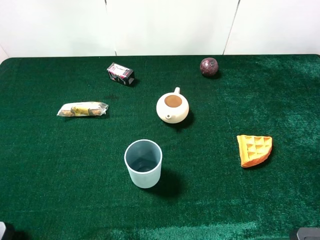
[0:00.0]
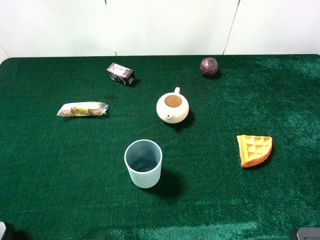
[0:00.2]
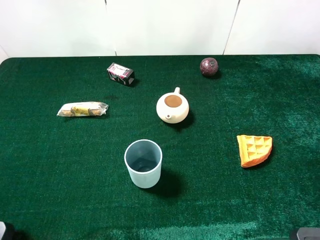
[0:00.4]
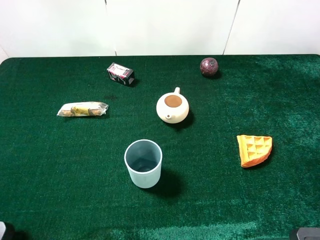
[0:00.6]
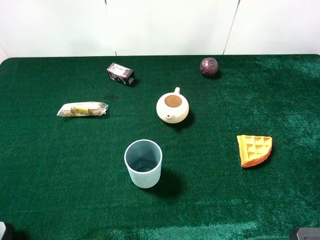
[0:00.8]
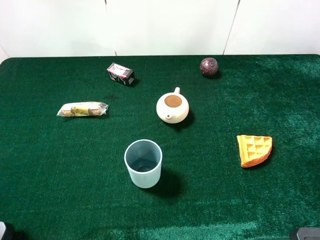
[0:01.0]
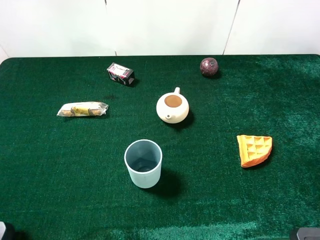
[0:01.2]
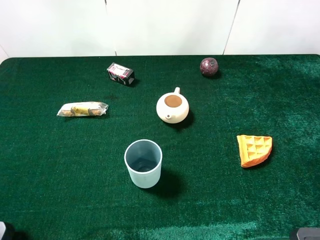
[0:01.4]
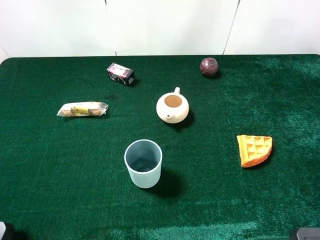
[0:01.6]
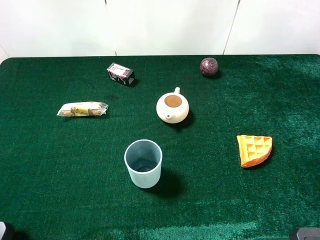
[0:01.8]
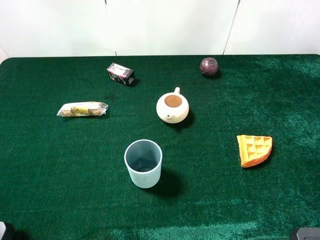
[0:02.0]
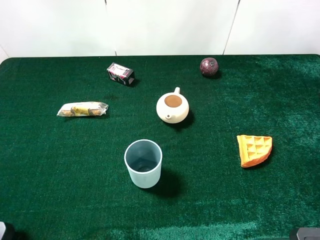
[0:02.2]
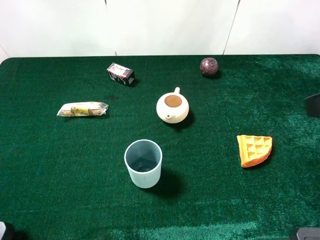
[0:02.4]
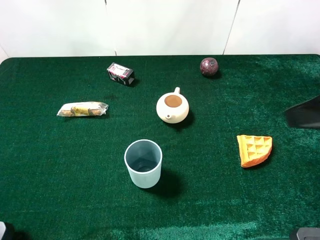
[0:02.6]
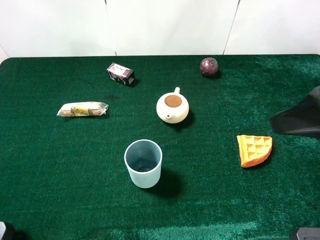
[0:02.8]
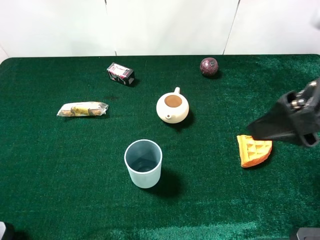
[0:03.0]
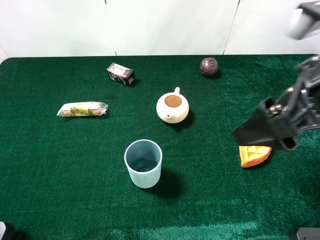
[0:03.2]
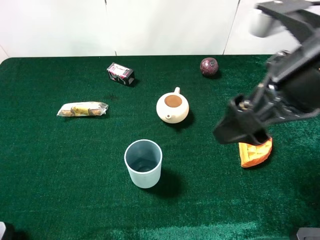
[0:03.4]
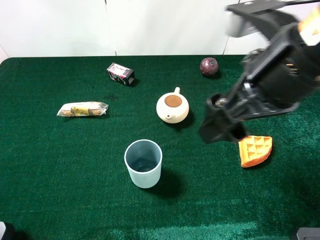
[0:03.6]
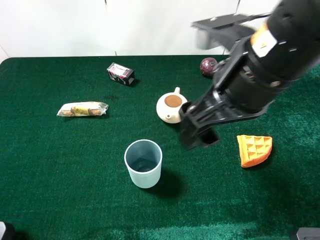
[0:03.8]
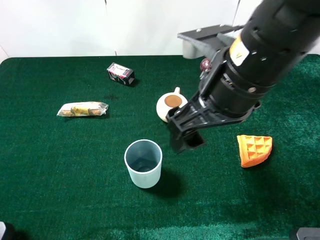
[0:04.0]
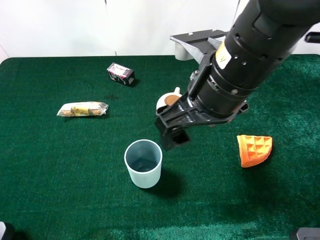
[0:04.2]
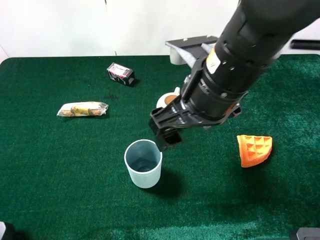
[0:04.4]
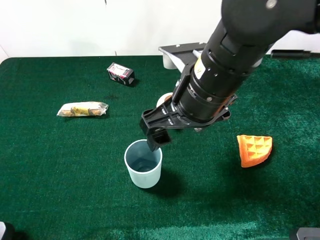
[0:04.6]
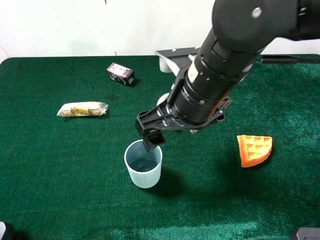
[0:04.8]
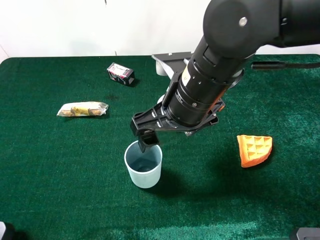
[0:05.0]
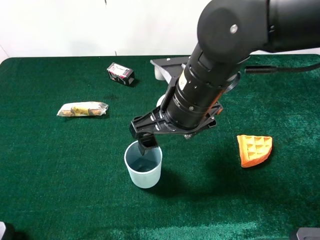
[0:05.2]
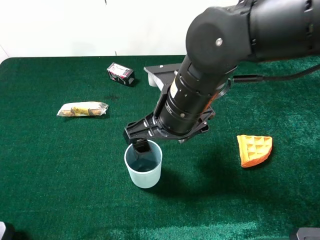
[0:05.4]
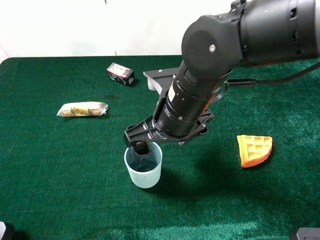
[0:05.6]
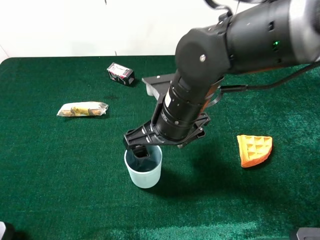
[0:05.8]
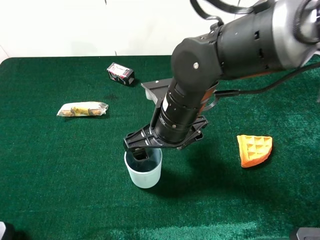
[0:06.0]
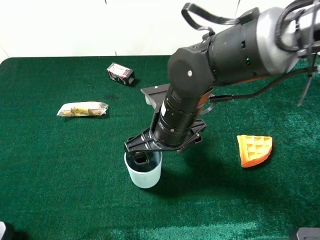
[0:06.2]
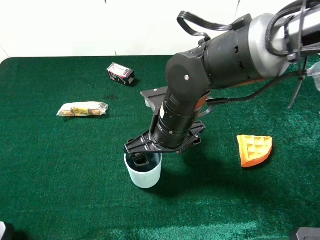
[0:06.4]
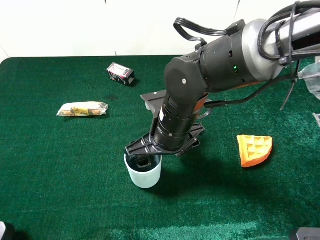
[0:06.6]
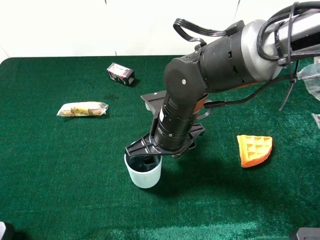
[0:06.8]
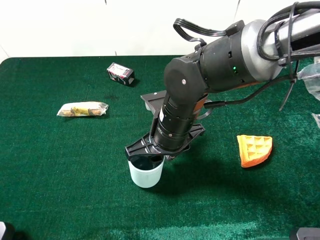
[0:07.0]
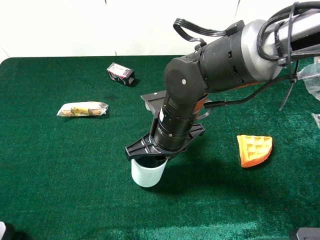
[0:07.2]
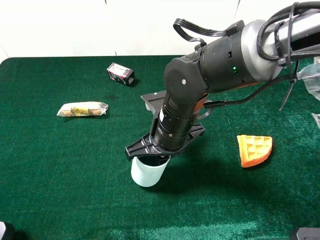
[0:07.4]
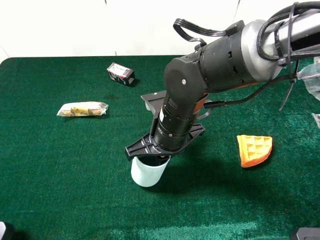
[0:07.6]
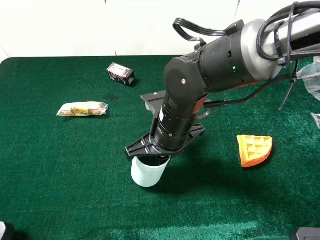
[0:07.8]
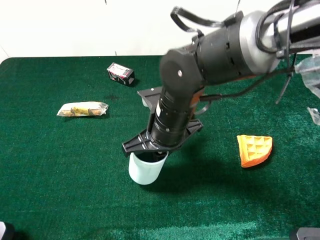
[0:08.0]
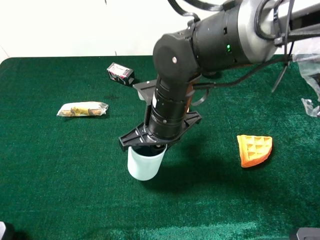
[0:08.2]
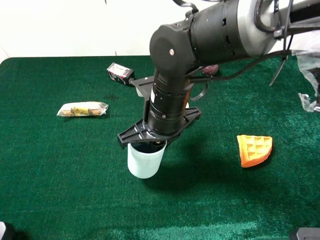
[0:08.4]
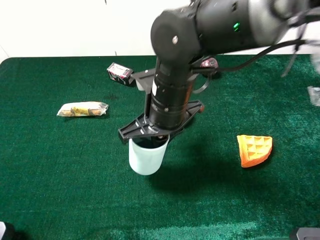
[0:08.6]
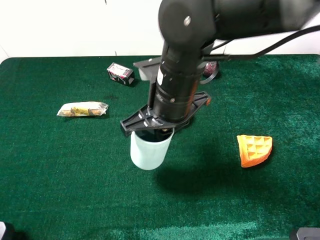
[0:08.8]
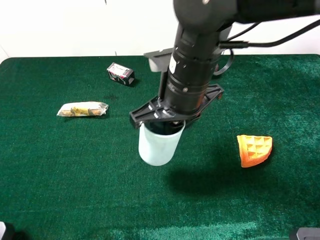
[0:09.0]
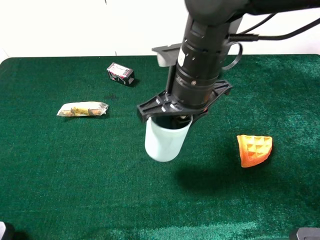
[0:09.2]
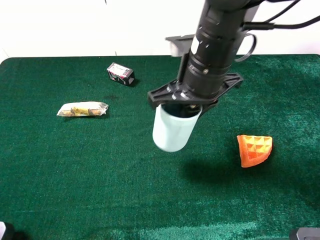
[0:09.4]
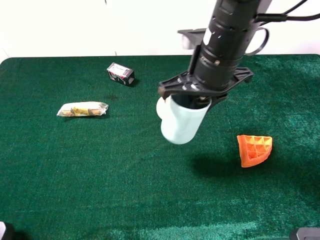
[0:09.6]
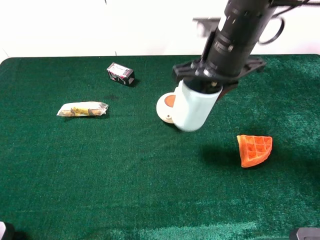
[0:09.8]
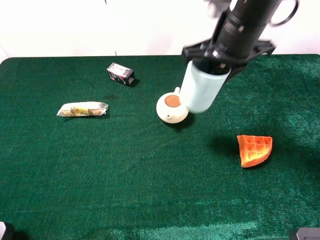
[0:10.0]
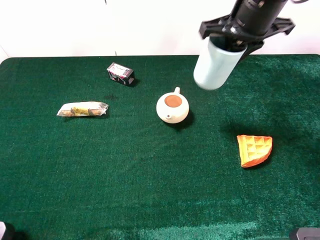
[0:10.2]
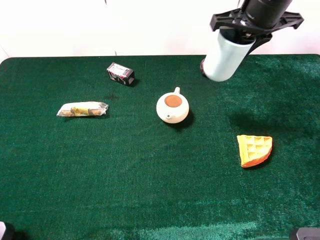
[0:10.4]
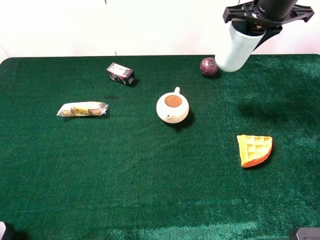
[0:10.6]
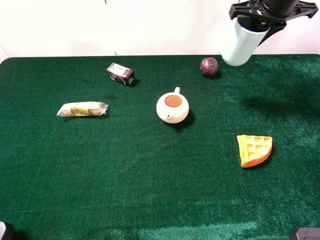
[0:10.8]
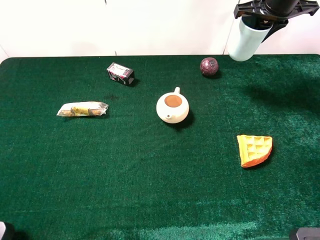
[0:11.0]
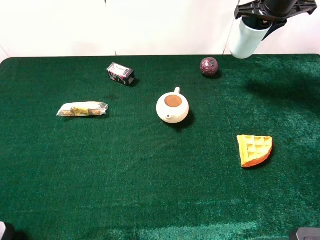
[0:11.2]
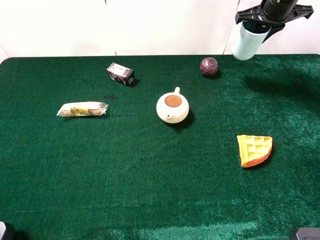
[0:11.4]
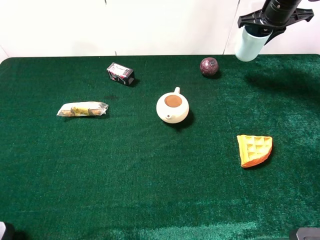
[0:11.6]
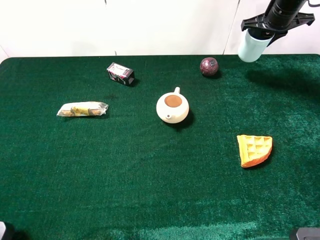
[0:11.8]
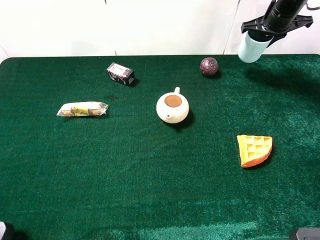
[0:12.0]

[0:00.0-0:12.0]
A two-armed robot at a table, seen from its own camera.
Task of the whole recording: the gripper move the object.
Step, 0:00.0 to 0:07.6: Grasp the cyan cup with the right gripper.
0:01.6 to 0:03.0: The right gripper is displaced to the left and forward by approximately 10 cm.
0:03.0 to 0:04.4: The right gripper moves to the left and downward, some 15 cm.
0:04.4 to 0:06.0: The right gripper shifts some 10 cm downward.
0:06.0 to 0:07.6: The right gripper closes up.
0:07.6 to 0:09.0: The right gripper heads upward, covering approximately 10 cm.
0:09.0 to 0:10.4: The right gripper shifts approximately 20 cm forward, to the right and upward.
0:10.4 to 0:12.0: The right gripper is displaced forward, to the right and downward by about 20 cm.

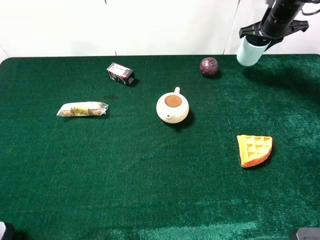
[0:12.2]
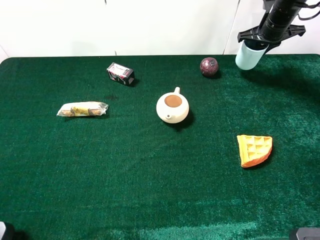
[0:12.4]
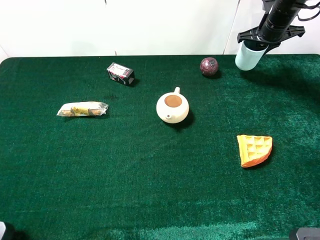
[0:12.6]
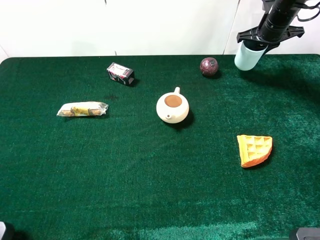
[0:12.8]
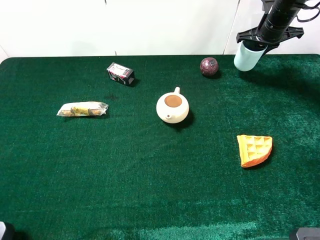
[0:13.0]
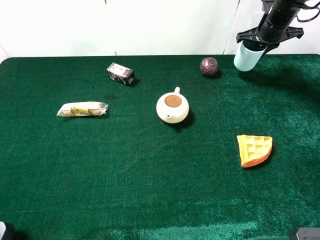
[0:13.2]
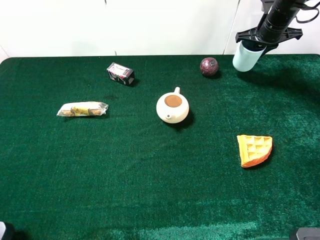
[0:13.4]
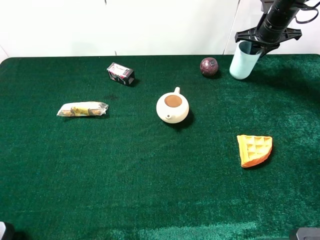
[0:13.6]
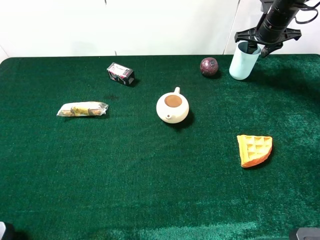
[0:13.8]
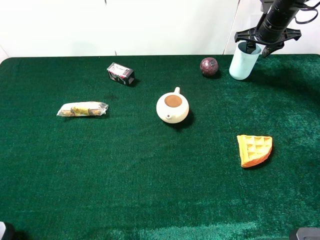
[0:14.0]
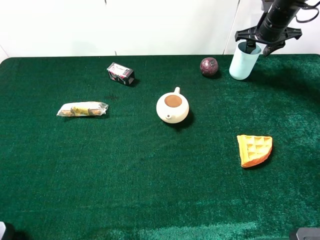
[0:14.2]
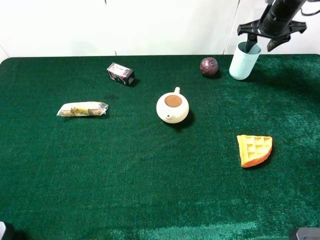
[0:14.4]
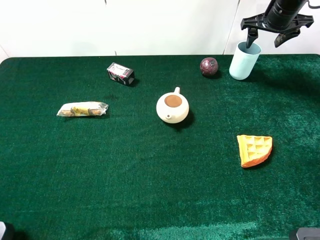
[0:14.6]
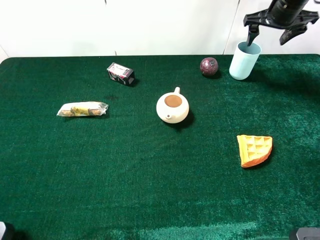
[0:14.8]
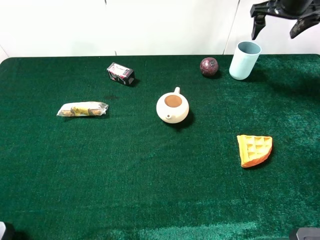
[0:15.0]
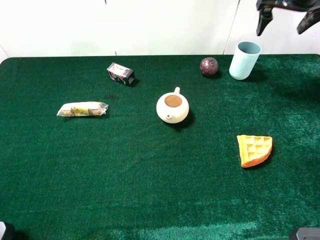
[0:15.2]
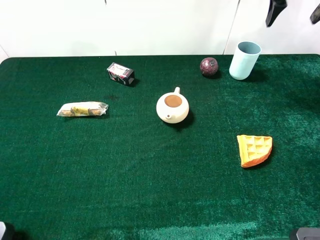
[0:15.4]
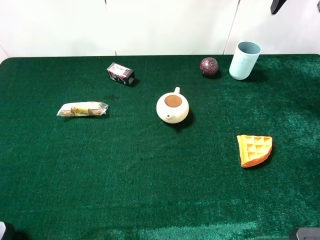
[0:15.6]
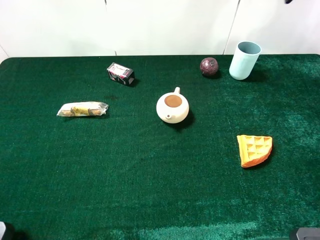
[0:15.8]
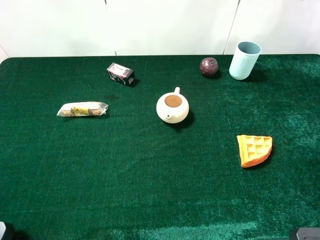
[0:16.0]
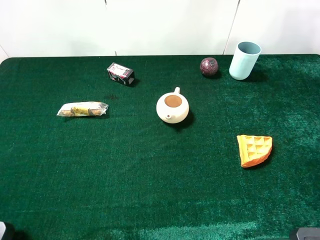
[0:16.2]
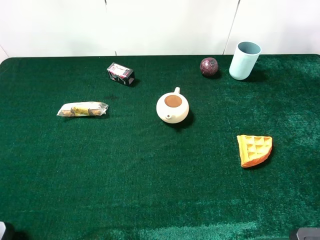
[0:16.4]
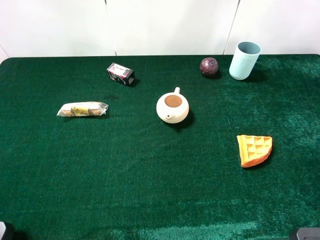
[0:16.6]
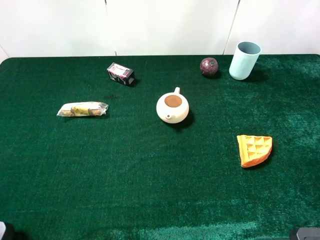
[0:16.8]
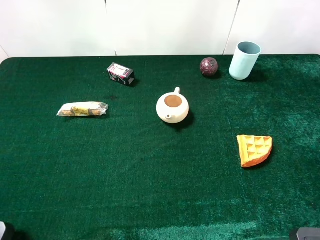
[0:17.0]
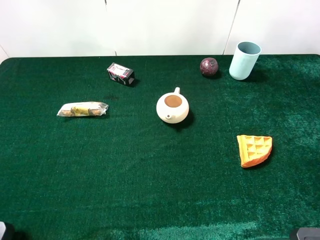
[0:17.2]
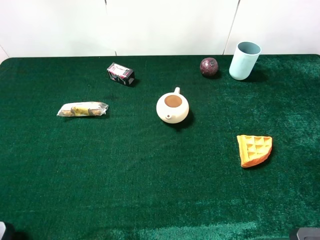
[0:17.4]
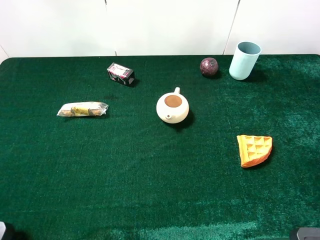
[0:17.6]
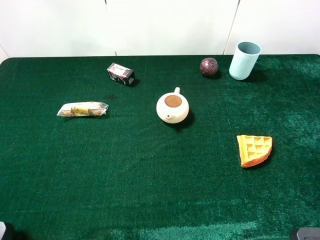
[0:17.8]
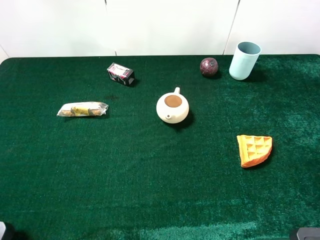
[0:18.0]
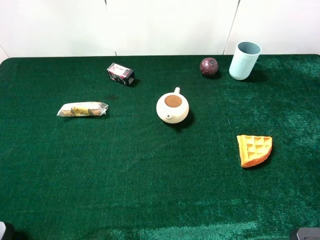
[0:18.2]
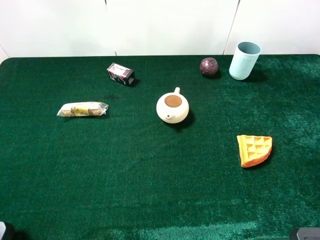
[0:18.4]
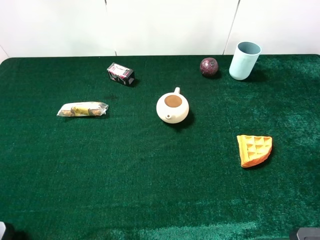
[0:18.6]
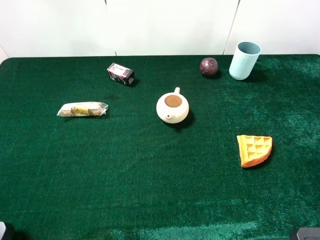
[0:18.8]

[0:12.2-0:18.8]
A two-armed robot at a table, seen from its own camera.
Task of the whole recording: the gripper move the object.
Step, 0:12.2 to 0:14.4: Place the cyan cup on the table with the right gripper.
0:12.2 to 0:13.8: The right gripper opens up.
0:13.8 to 0:15.4: The right gripper shifts approximately 15 cm upward and backward, and opens up.
0:15.4 to 0:17.2: The right gripper goes some 35 cm backward.
